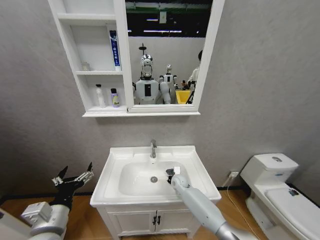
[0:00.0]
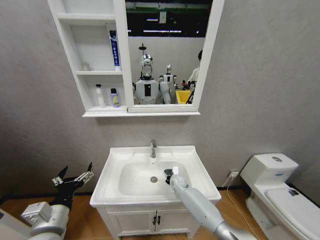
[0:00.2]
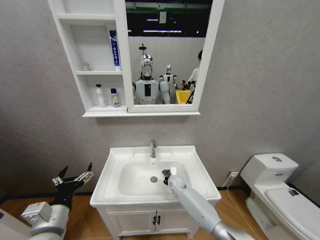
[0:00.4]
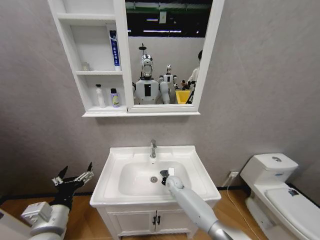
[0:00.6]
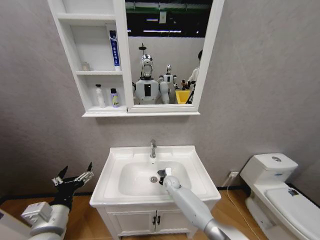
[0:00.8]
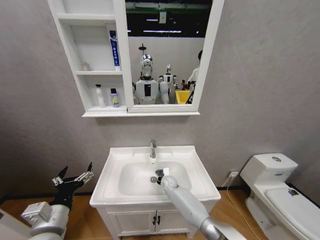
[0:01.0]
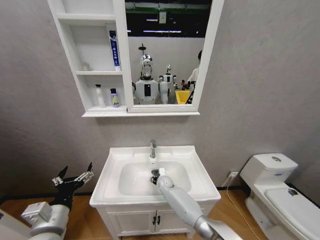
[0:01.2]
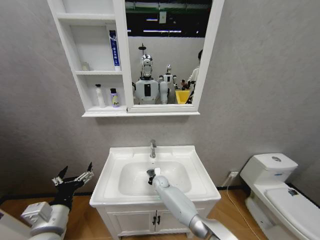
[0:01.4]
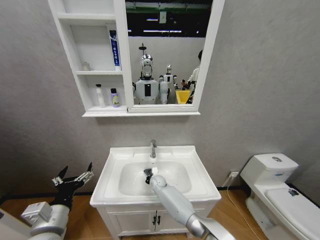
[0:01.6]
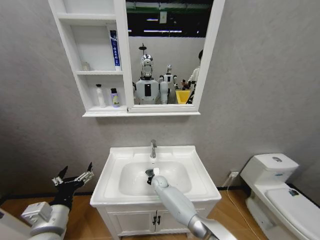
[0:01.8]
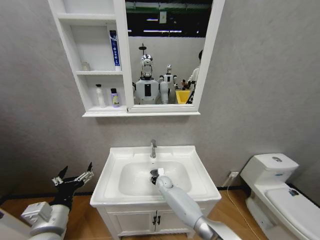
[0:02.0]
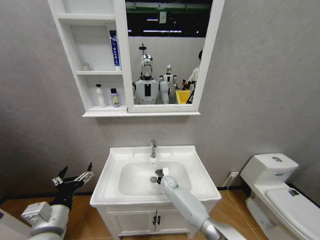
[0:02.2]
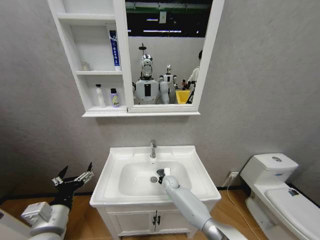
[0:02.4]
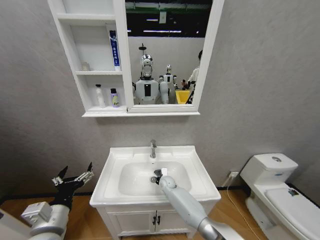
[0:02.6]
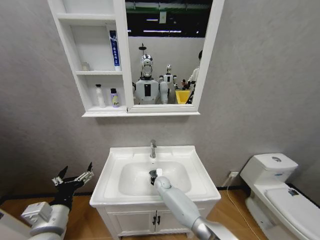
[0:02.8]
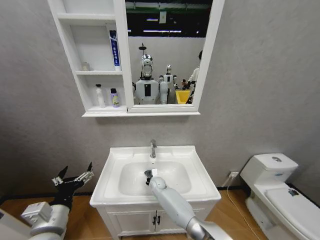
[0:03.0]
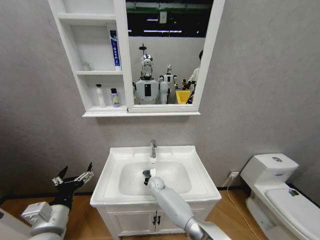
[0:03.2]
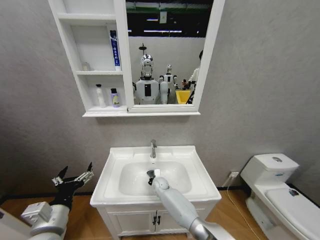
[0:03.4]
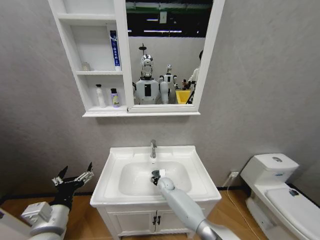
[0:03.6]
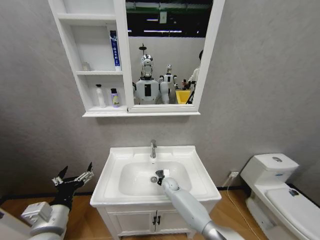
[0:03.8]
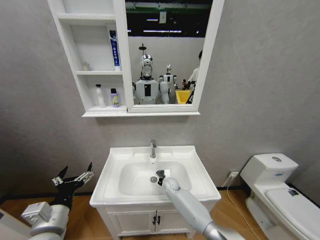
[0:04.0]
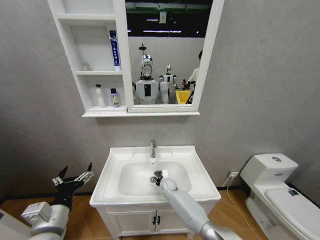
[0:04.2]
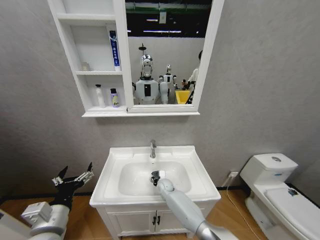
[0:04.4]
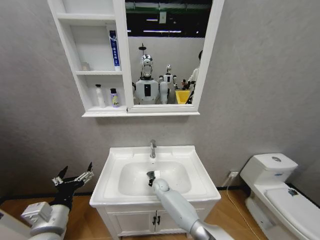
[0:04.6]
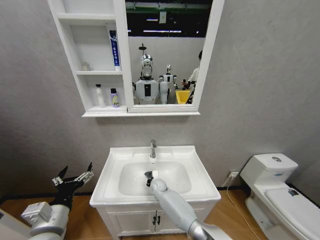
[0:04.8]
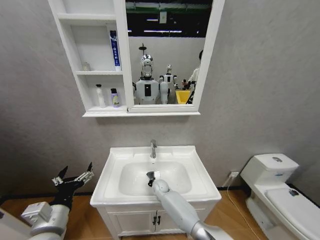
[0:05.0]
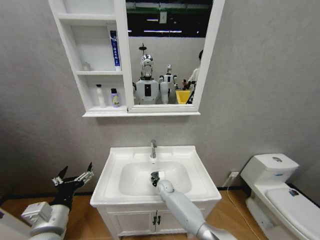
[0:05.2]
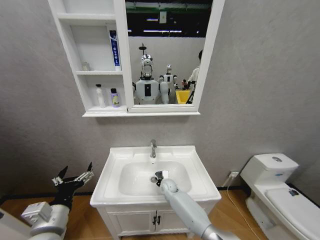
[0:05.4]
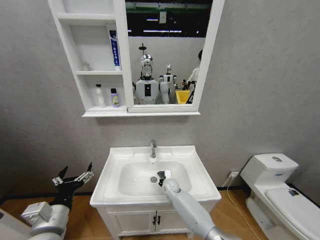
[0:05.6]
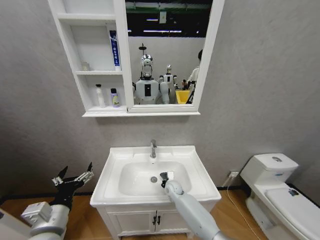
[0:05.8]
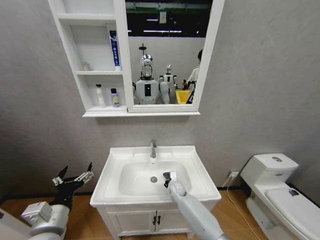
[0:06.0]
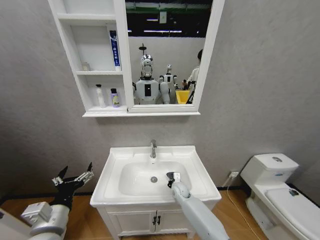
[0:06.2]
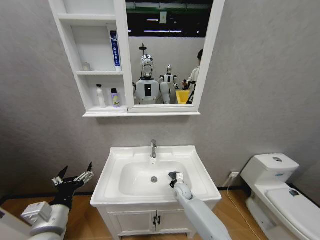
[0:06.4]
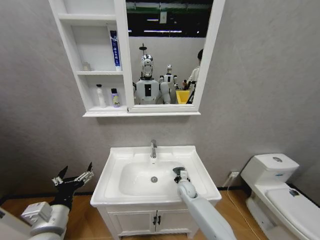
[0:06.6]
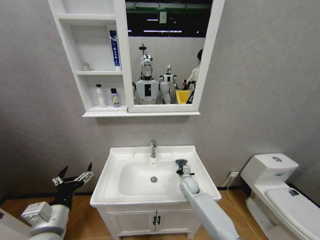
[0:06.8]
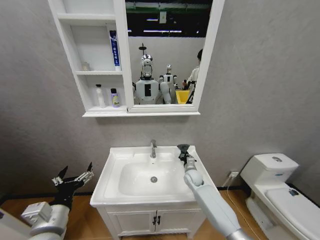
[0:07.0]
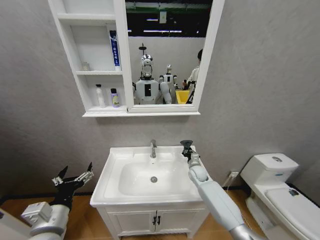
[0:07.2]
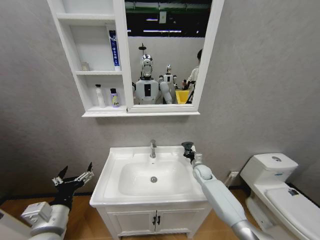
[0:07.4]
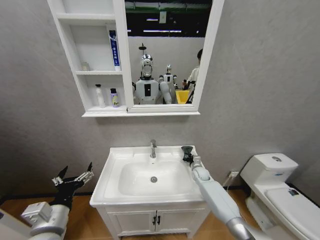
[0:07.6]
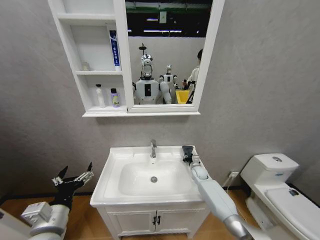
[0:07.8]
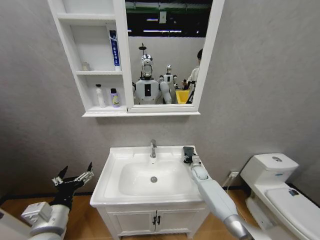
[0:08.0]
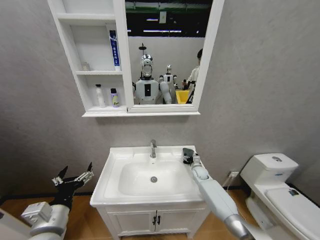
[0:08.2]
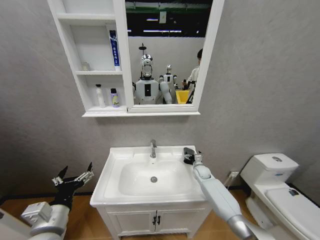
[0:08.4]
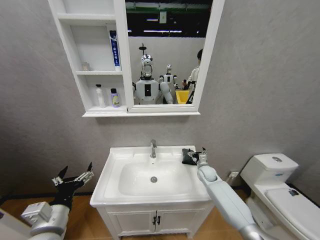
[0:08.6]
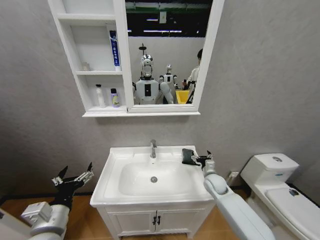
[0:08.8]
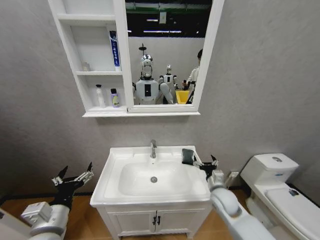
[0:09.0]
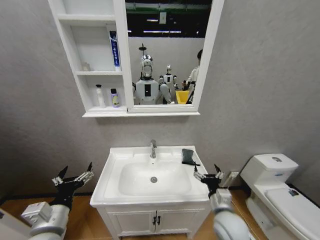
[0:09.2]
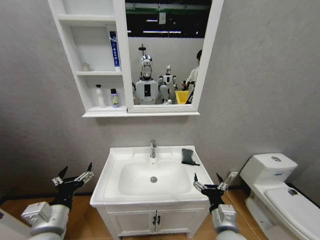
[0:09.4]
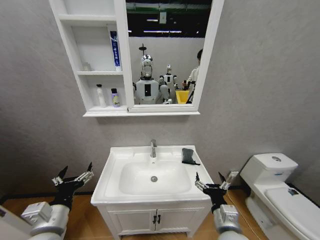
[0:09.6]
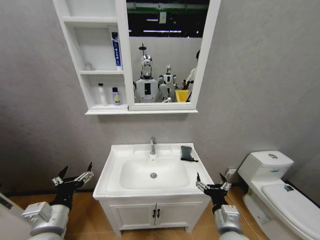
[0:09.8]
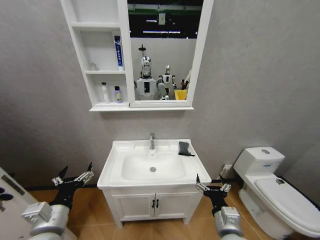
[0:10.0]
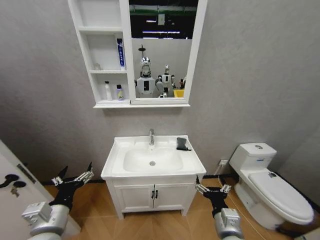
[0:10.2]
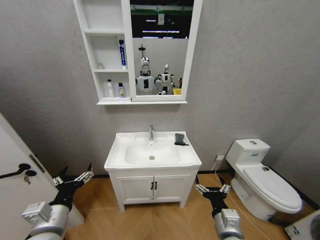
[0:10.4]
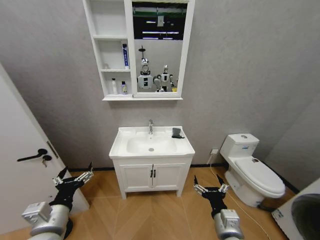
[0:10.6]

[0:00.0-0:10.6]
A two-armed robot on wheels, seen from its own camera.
Task of the whole recording: Move facial cleanser and shampoo from washbasin to cabinet, then wipe washbasin with towel.
0:00.0 to 0:01.6: The right gripper travels to the left by approximately 15 cm.
0:03.0 to 0:04.6: The right gripper moves approximately 5 cm to the right and comes back.
0:04.6 to 0:06.0: The right gripper shifts about 10 cm to the right.
0:06.0 to 0:07.6: The right gripper travels to the right and forward by roughly 20 cm.
0:07.6 to 0:09.0: The right gripper heads backward and upward, covering approximately 20 cm, and opens.
0:09.0 to 0:10.6: The right gripper travels backward by about 20 cm.

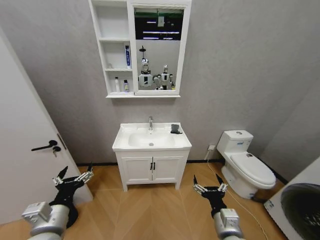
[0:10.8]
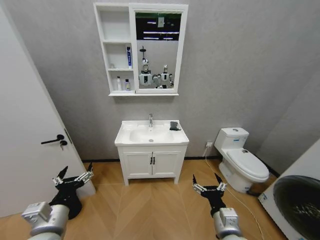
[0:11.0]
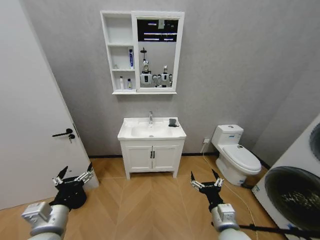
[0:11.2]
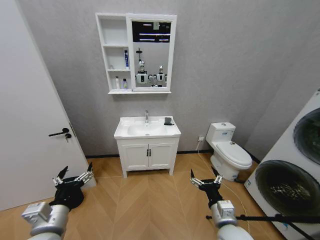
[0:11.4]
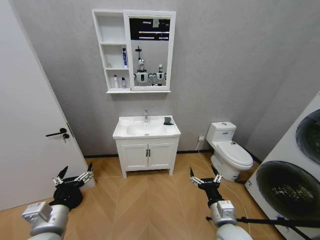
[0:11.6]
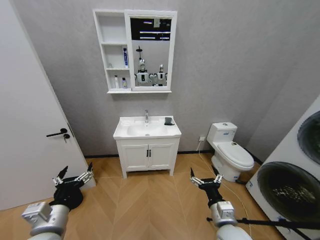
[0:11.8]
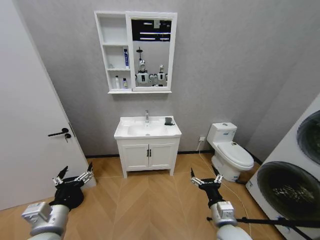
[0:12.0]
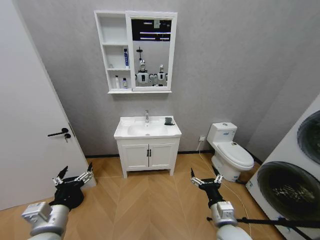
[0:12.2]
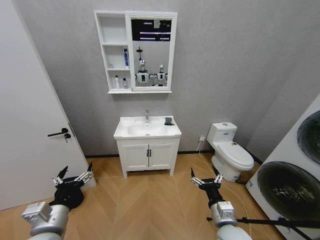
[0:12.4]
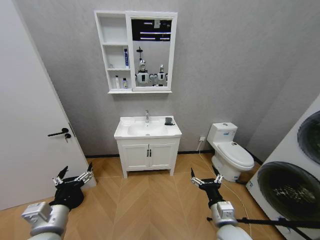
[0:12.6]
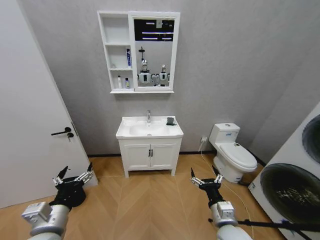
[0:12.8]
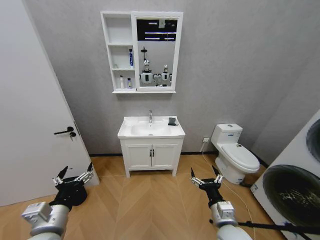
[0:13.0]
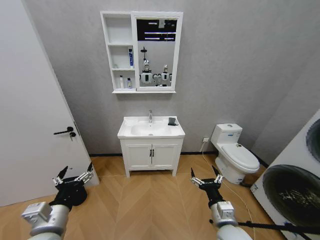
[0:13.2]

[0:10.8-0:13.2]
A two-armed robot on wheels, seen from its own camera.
Task of the whole recording: Move facial cleanser and shampoo from washbasin to cabinet, then wipe washbasin with towel.
0:12.0 to 0:13.2: Both grippers stay put.

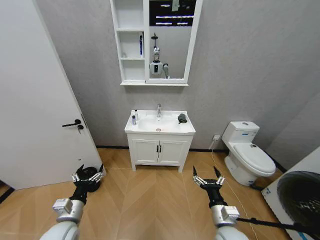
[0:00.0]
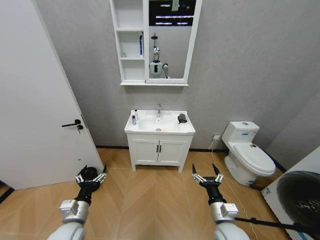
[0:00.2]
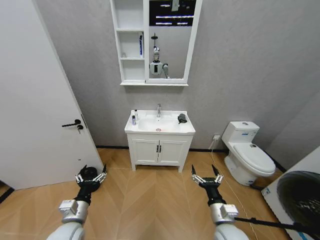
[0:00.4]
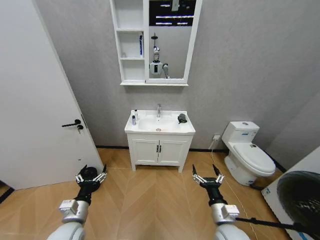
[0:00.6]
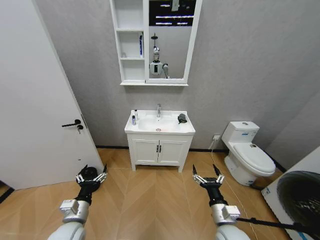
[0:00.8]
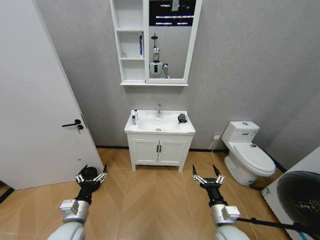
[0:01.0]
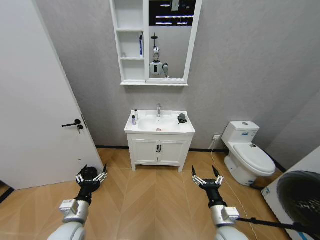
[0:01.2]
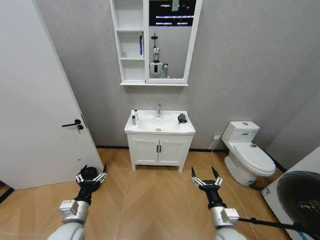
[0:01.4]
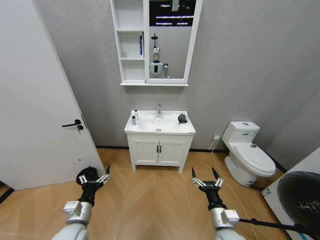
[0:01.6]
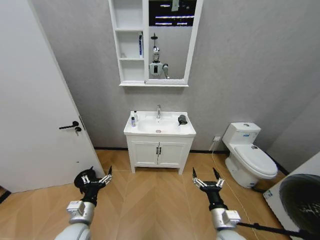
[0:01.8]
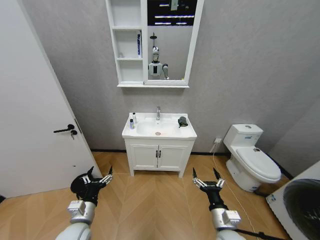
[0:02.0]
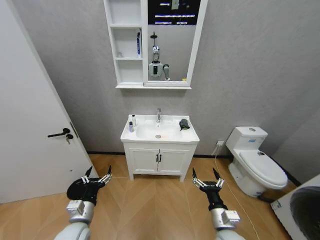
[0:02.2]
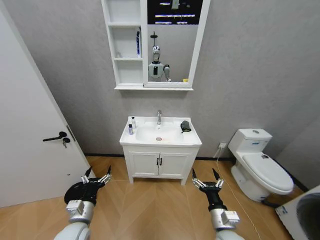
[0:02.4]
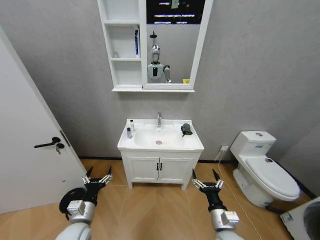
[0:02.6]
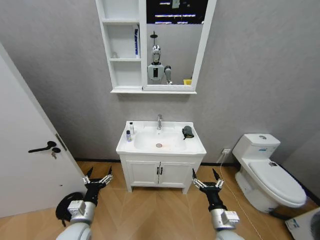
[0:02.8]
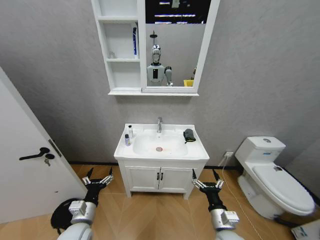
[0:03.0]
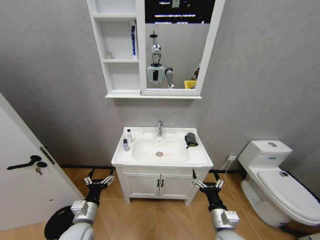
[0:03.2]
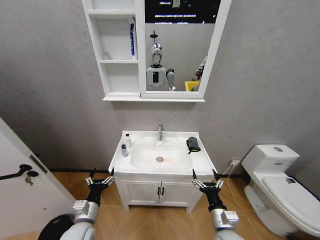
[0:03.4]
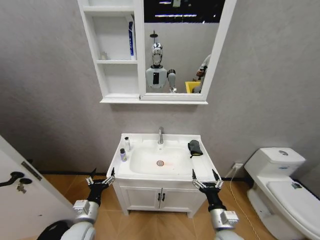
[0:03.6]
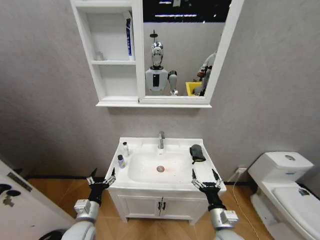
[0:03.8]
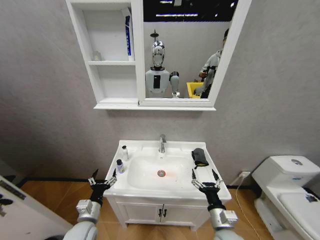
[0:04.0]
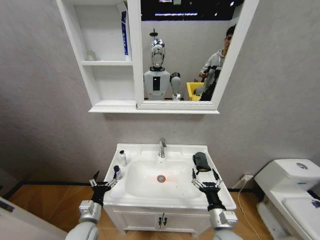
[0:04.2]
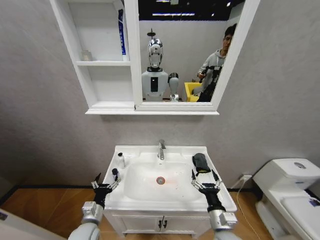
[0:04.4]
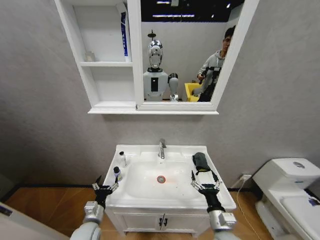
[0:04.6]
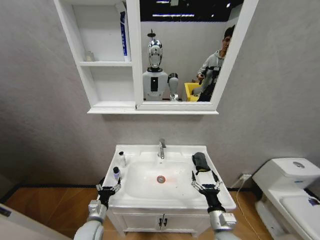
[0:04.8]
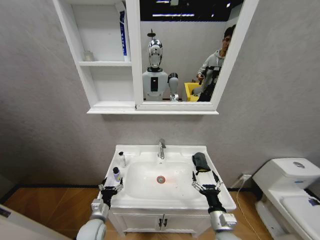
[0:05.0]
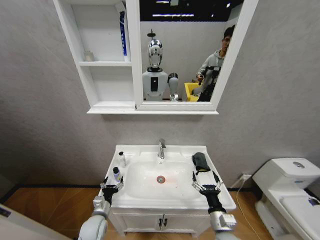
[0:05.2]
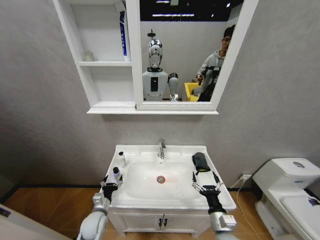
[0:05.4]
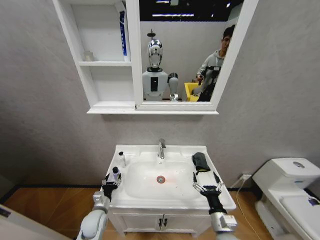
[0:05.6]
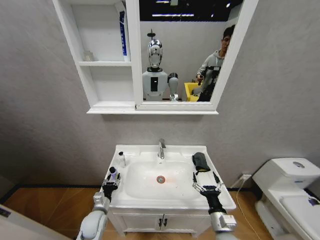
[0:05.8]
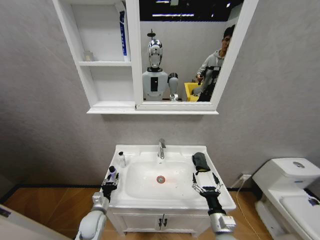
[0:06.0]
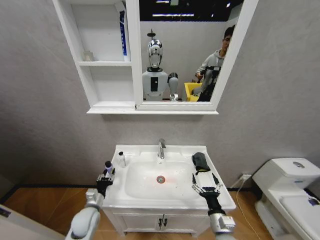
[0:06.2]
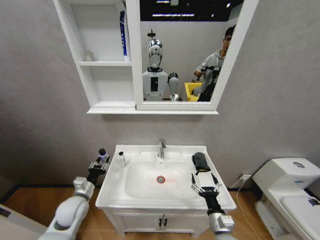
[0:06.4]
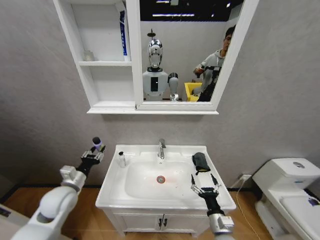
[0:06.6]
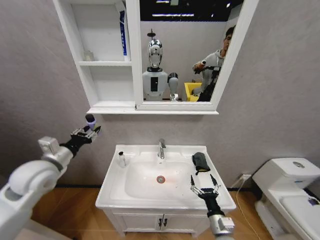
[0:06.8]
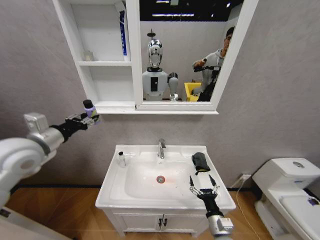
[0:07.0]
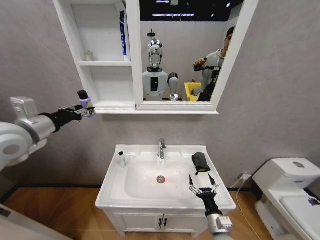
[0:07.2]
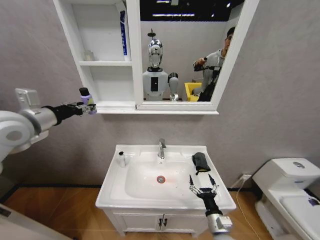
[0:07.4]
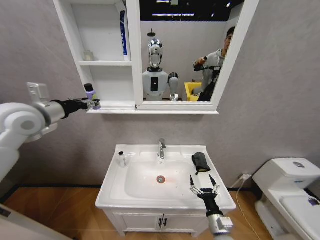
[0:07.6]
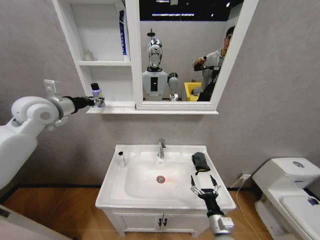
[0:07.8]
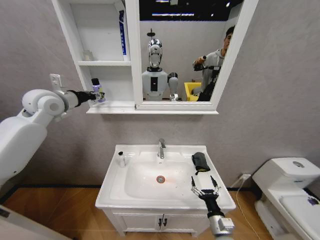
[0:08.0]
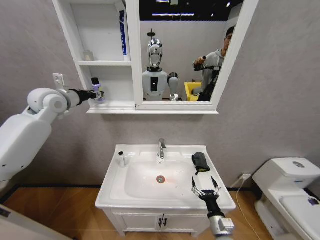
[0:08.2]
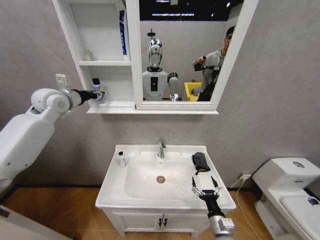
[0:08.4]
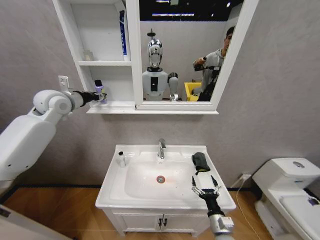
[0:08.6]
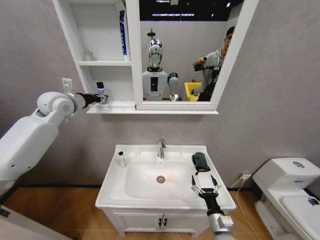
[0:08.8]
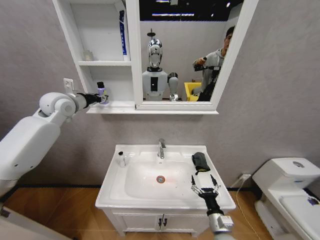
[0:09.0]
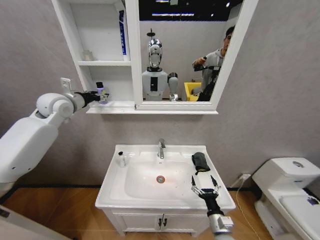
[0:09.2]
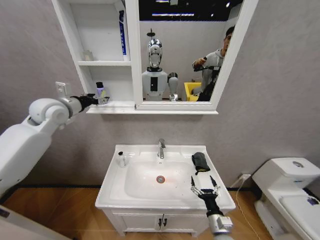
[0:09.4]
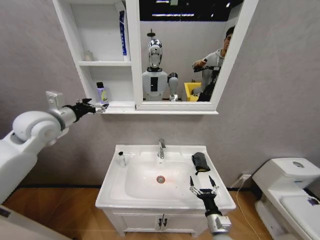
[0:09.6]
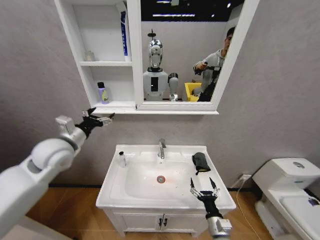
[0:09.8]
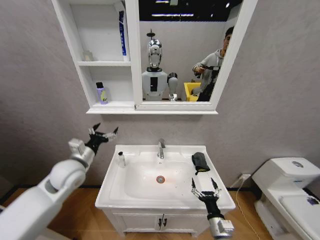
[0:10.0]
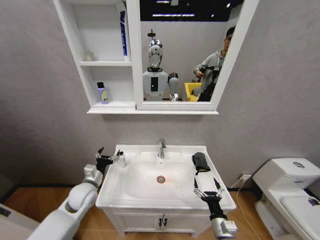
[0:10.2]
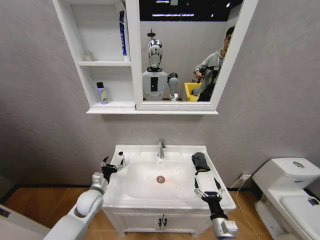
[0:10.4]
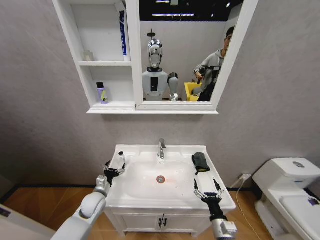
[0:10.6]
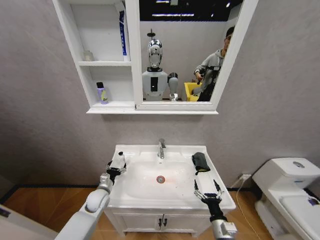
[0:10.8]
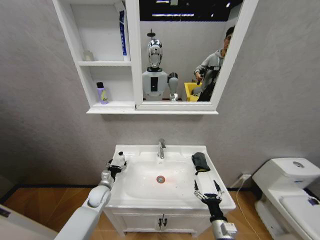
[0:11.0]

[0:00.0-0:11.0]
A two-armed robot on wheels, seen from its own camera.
Task of the whole recording: Move facial cleanser and shampoo from washbasin to cabinet, then wipe washbasin with towel.
0:03.2 to 0:04.8: The left gripper is displaced downward by some 10 cm.
0:04.8 to 0:06.2: The left gripper closes.
0:06.2 to 0:07.8: The left gripper heads upward, covering approximately 40 cm.
0:07.8 to 0:09.4: The left gripper opens its fingers.
0:09.4 to 0:11.0: The left gripper is displaced downward by roughly 40 cm.
